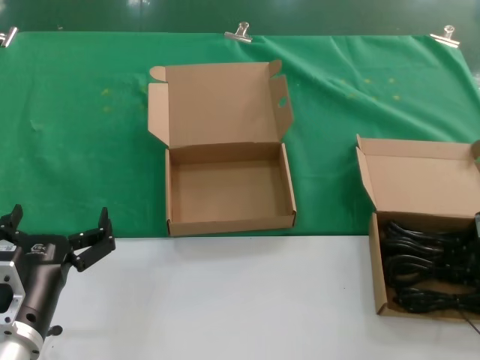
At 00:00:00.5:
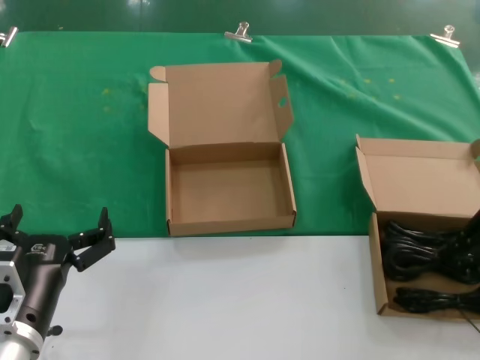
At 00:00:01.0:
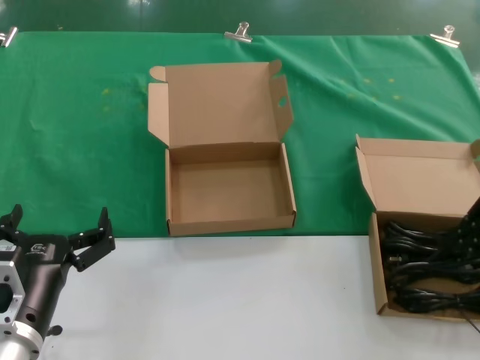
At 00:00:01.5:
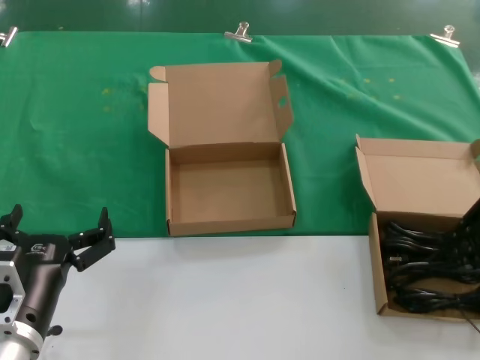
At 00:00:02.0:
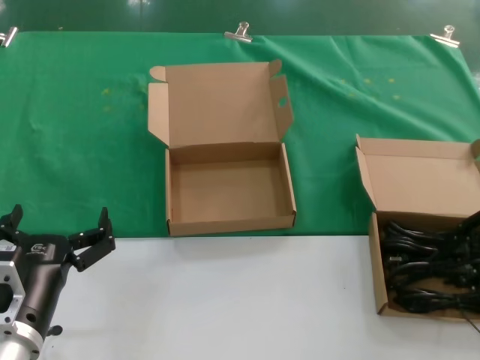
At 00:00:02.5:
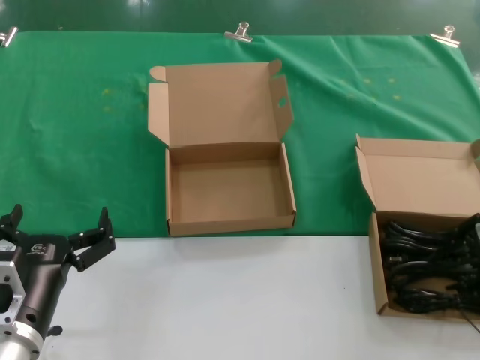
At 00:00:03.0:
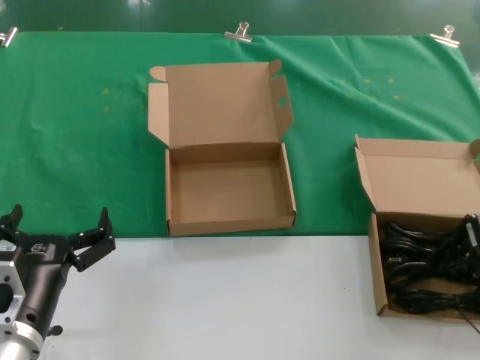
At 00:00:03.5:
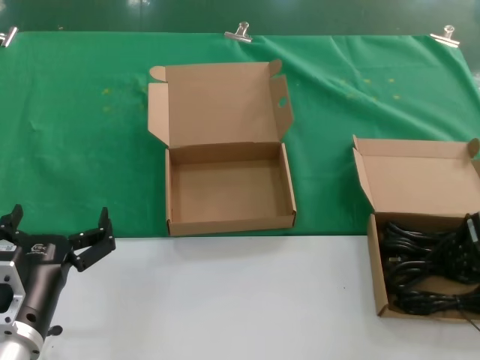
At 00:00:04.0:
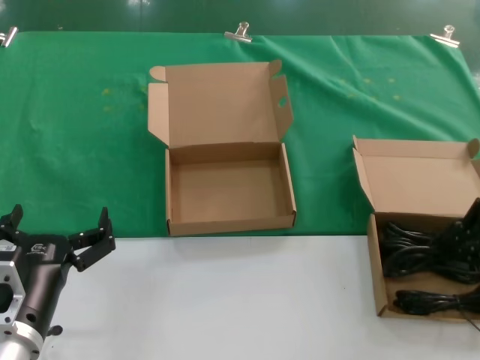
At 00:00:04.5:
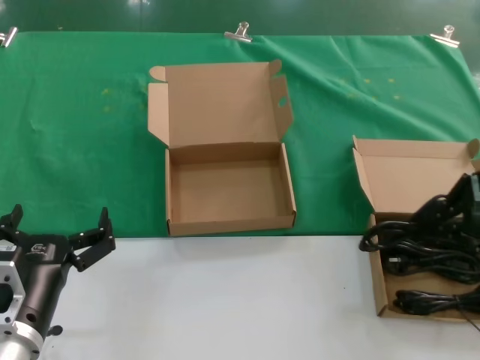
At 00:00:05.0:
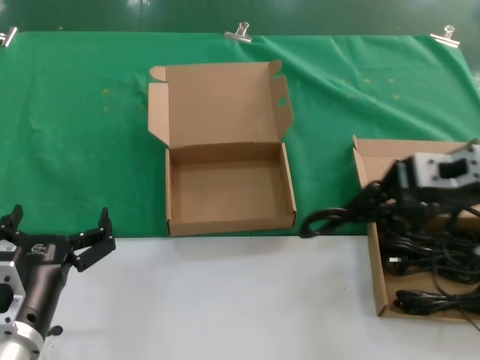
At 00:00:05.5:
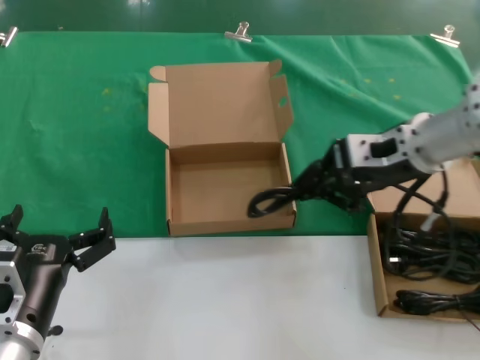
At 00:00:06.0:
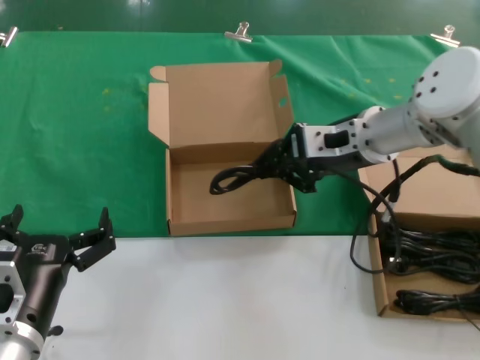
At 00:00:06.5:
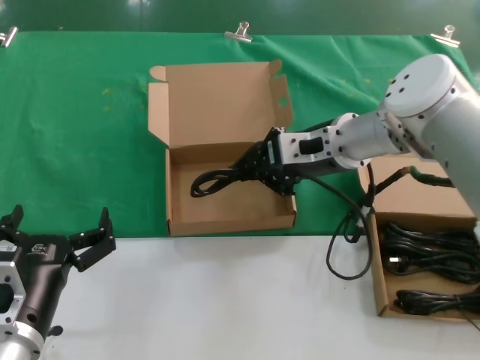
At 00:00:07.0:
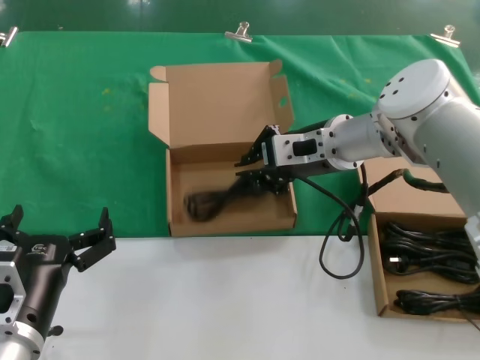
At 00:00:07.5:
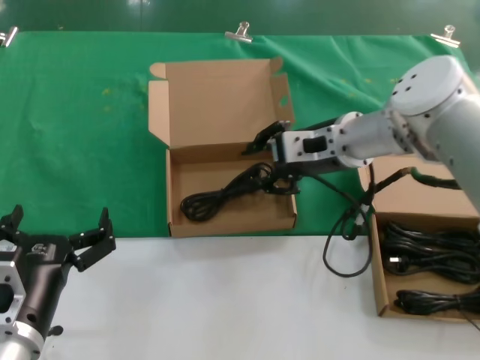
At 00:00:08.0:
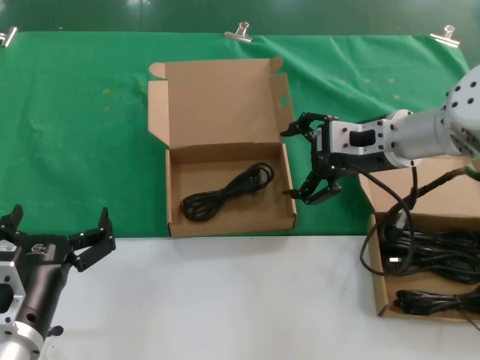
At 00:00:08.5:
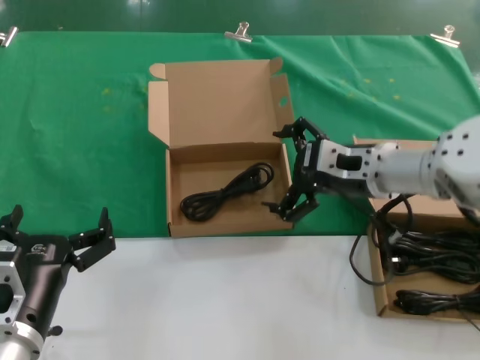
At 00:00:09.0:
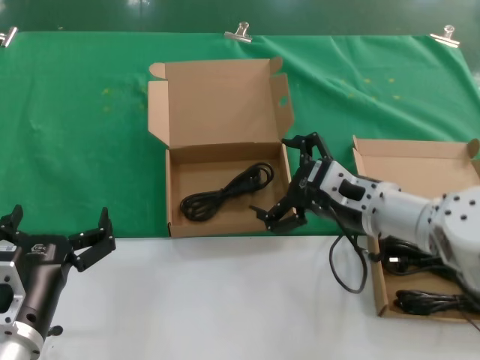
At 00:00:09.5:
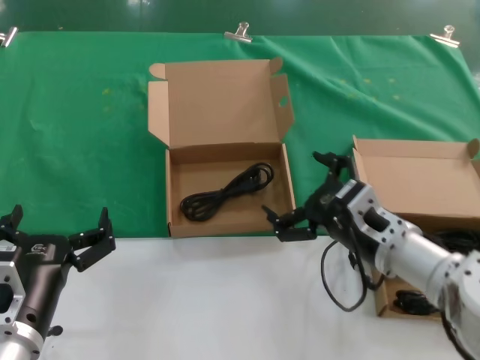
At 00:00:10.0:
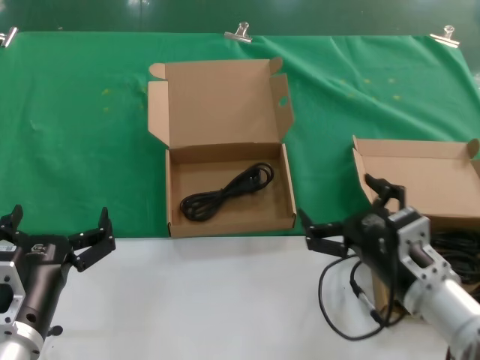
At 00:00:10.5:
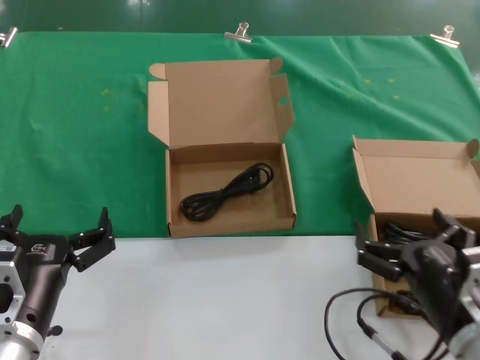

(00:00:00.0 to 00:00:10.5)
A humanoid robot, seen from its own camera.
Task of the whole recording: take the parts from the box containing them and put them into an empty box.
Step, 00:00:00.0 - 00:00:07.0: Place the data cable in the another box.
00:00:02.0 - 00:00:04.0: The hands make only small movements.
00:00:04.0 - 00:00:06.5: The right hand is displaced to the left and forward by about 25 cm.
00:00:06.5 - 00:00:08.5: The right hand ends up roughly 5 cm from where it was.
00:00:08.5 - 00:00:10.5: The right hand heads backward and downward, covering approximately 25 cm.

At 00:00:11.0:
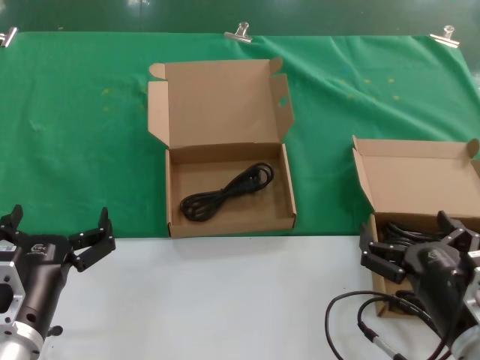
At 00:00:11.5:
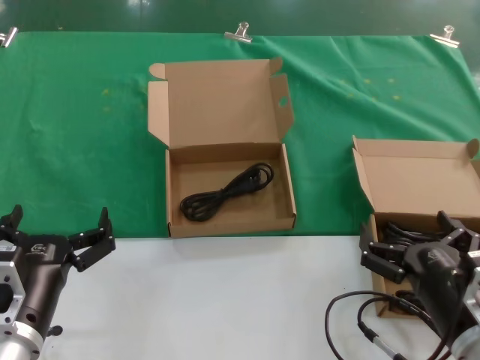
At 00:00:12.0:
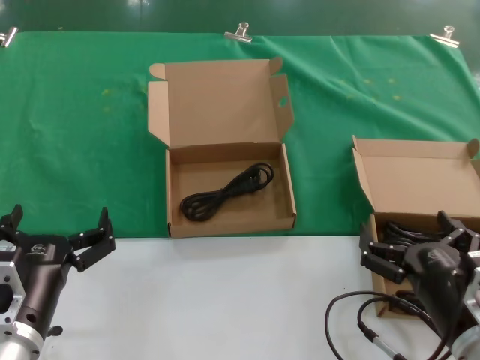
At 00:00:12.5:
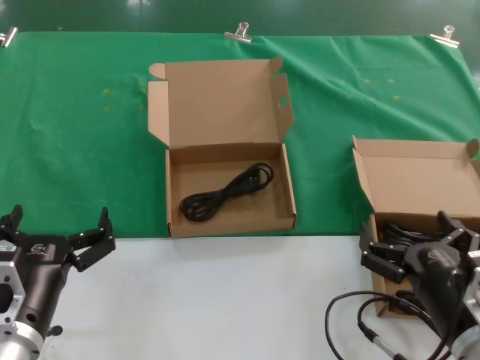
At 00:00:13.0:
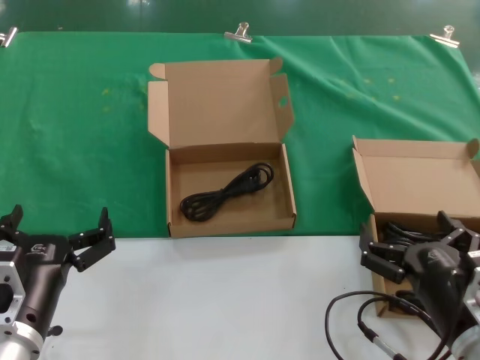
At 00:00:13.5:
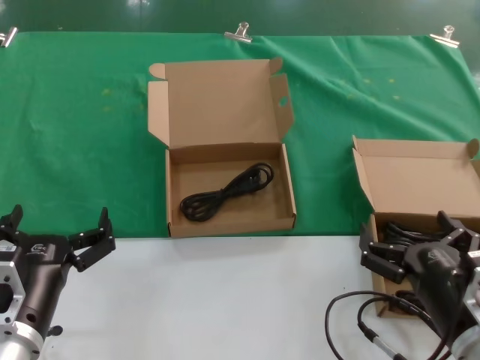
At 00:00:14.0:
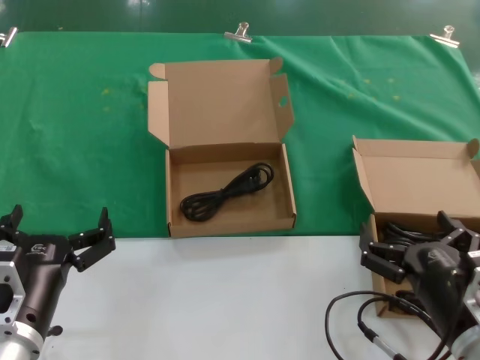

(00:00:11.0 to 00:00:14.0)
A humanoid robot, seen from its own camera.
Task of the whole recording: take the parts from the box containing them and put them into an empty box.
00:00:11.0 - 00:00:14.0: Both hands stay put.

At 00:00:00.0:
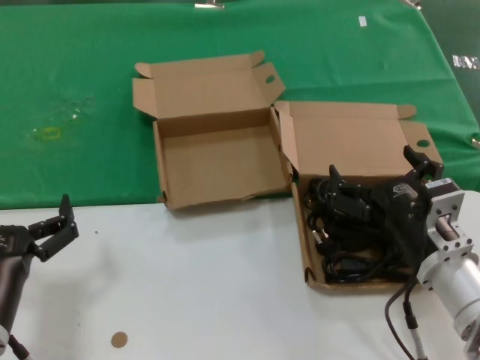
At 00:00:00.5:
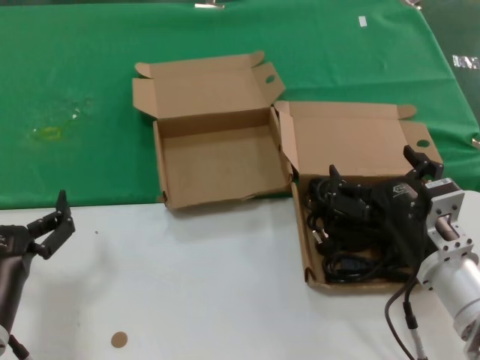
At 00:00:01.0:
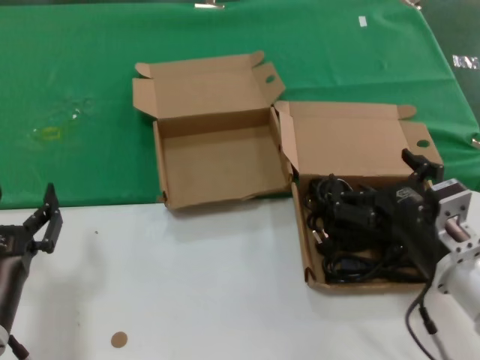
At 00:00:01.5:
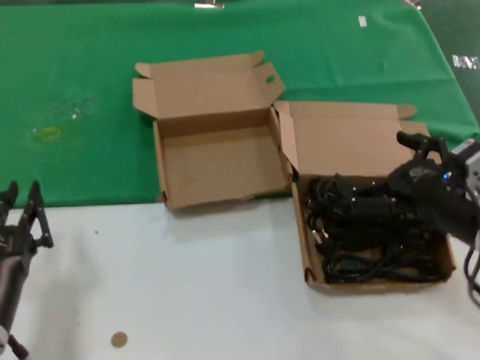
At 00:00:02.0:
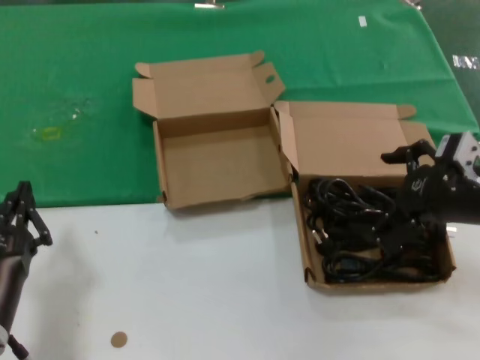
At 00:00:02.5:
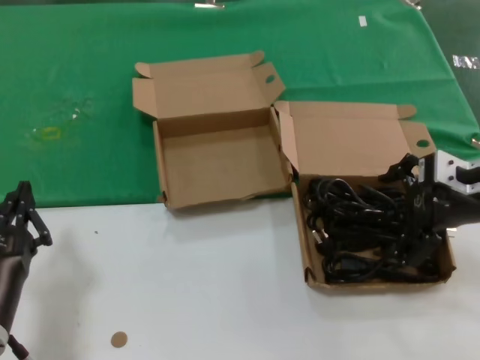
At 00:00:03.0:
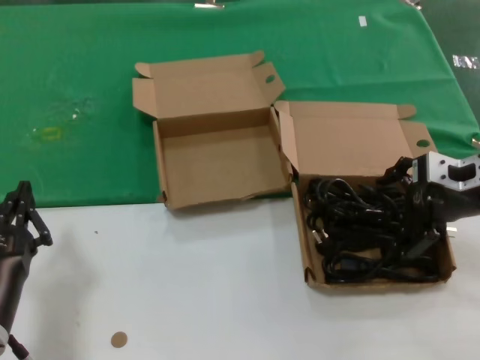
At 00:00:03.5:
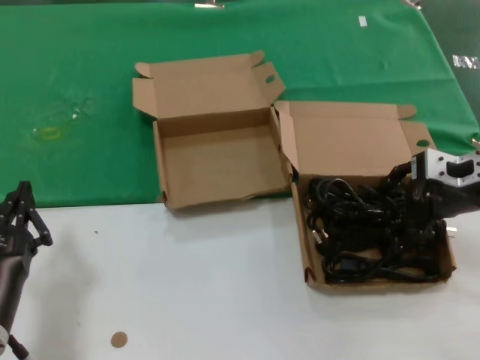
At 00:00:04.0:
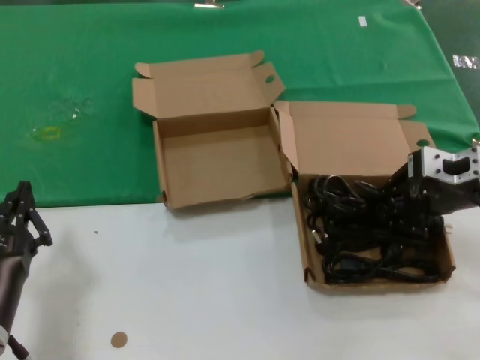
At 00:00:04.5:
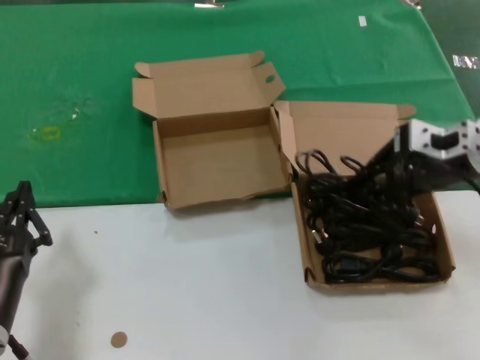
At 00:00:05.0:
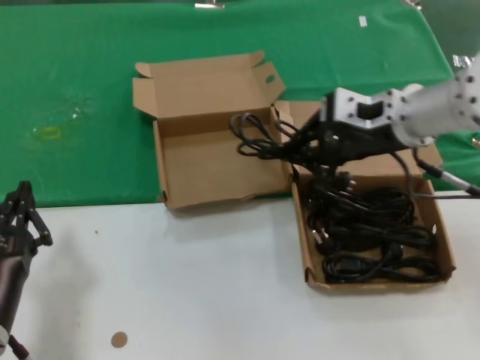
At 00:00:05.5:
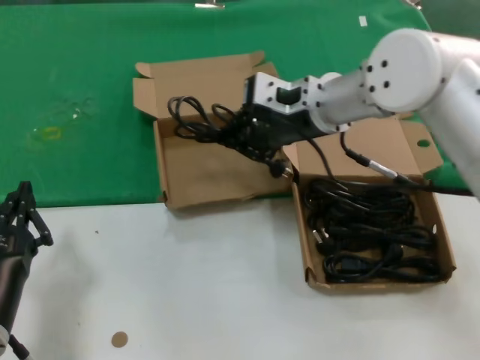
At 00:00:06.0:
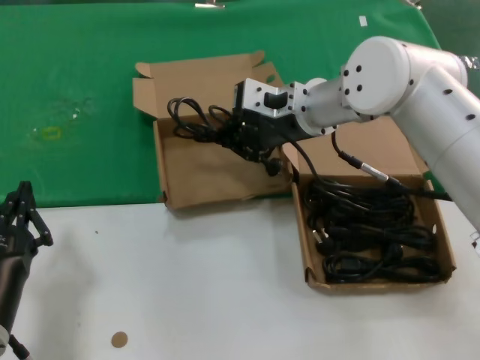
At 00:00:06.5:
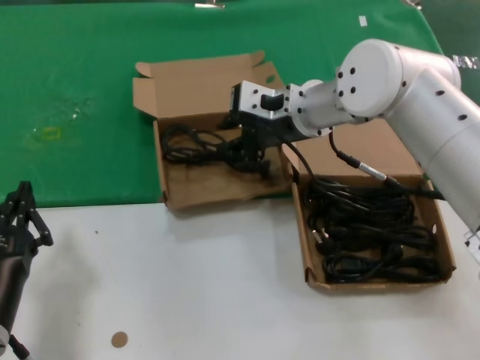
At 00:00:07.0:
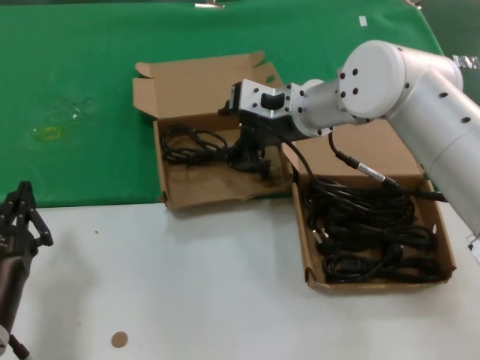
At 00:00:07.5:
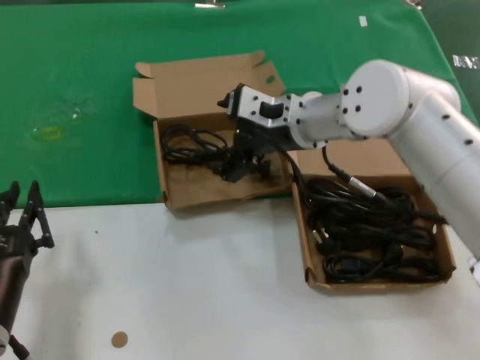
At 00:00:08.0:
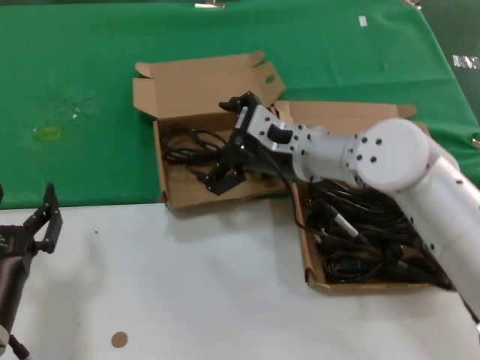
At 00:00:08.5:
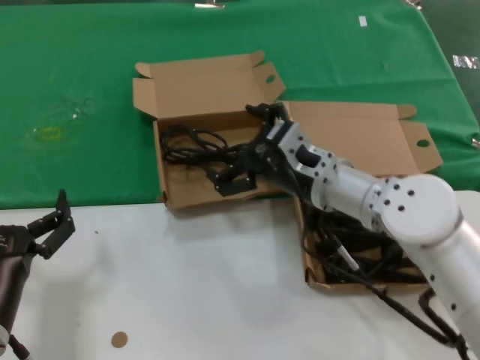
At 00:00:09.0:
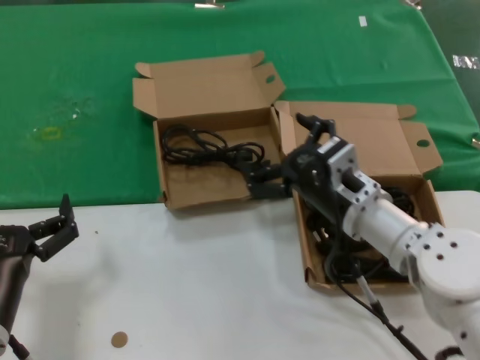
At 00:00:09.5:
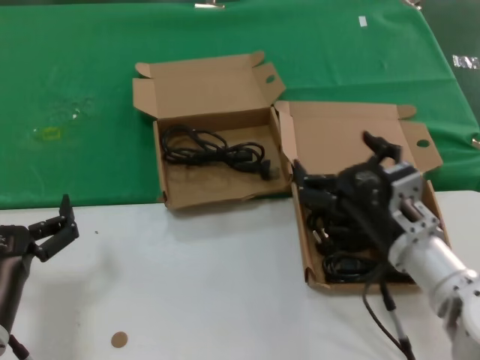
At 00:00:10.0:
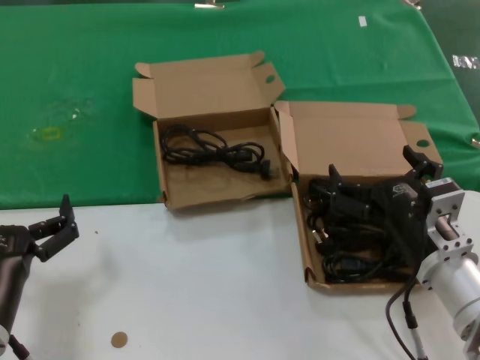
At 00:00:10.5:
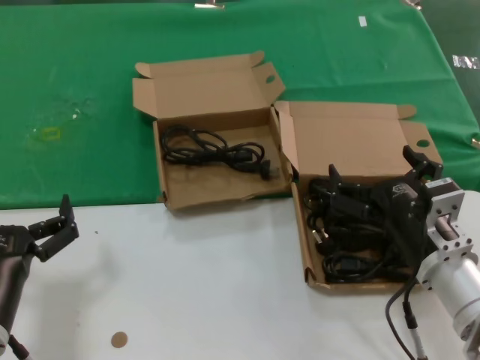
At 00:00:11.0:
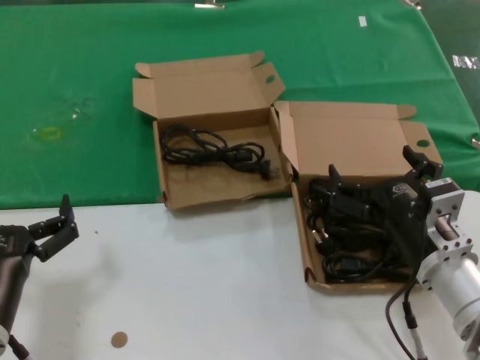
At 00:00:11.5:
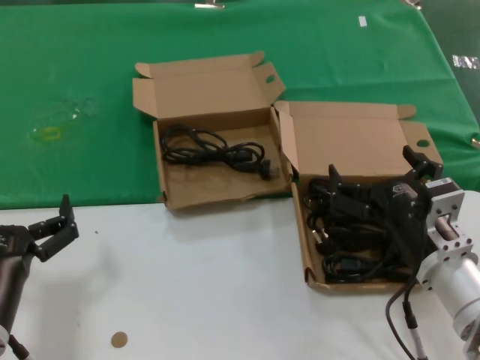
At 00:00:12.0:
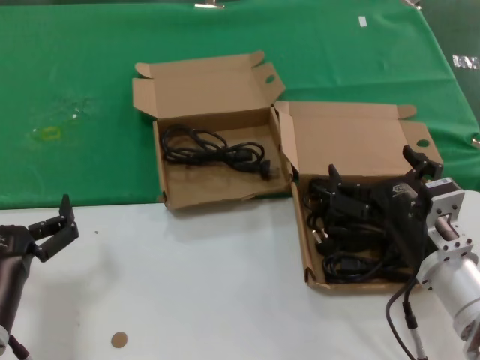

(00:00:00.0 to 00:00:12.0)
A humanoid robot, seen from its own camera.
Task of the whole recording: take the parts from the box containing them and put them into an empty box.
Step, 00:00:00.0 - 00:00:03.5: Grasp the data cable.
Step, 00:00:04.0 - 00:00:06.5: Place the data cable in the another box.
00:00:00.0 - 00:00:02.0: The right hand shifts approximately 15 cm upward and to the right.
00:00:02.0 - 00:00:04.0: The right hand shifts some 10 cm forward.
00:00:04.0 - 00:00:06.0: The right hand goes some 25 cm to the left and forward.
00:00:06.0 - 00:00:08.0: The right hand goes roughly 5 cm downward.
00:00:08.0 - 00:00:10.0: The right hand heads backward, downward and to the right, covering approximately 25 cm.
00:00:10.0 - 00:00:12.0: Neither hand changes place.
